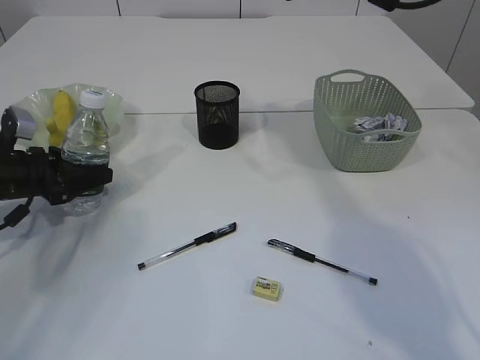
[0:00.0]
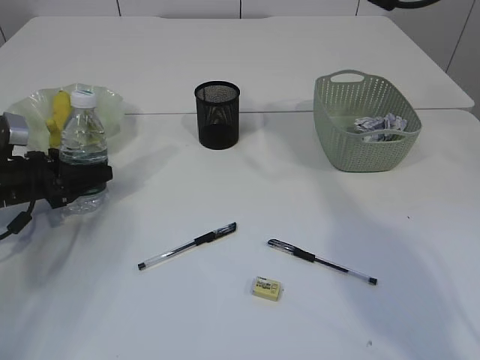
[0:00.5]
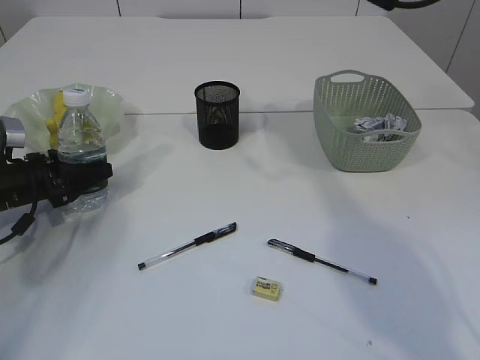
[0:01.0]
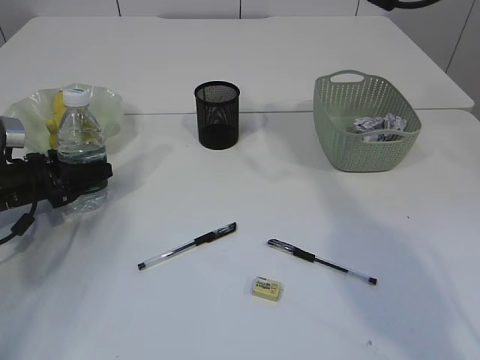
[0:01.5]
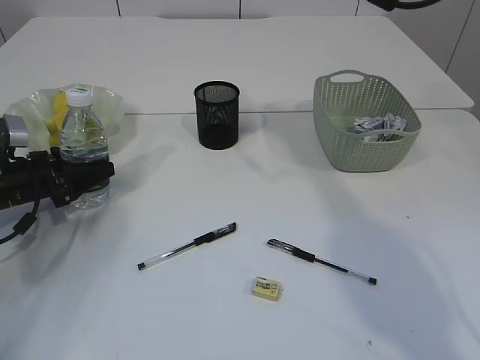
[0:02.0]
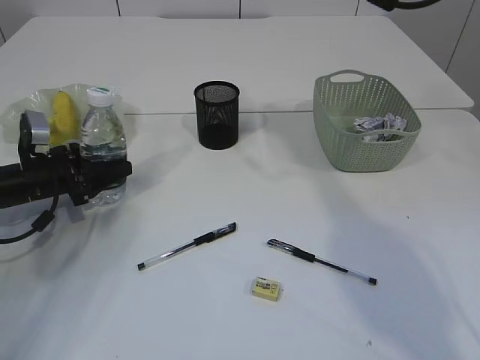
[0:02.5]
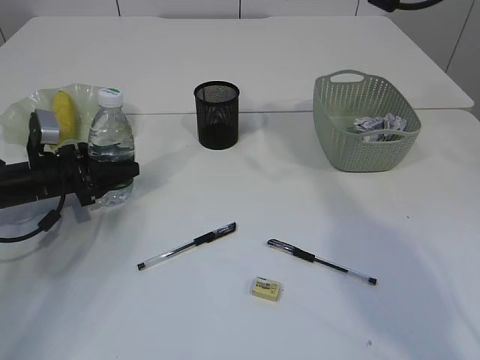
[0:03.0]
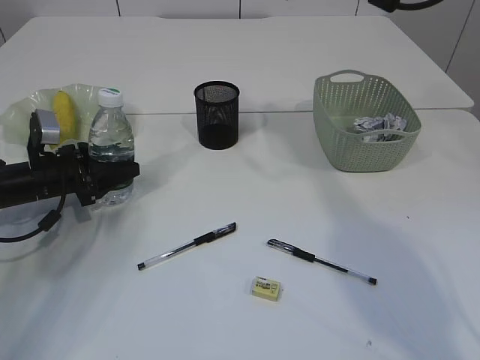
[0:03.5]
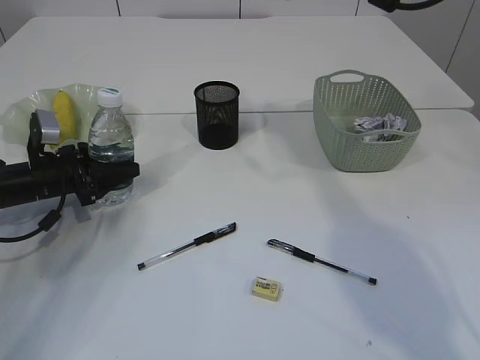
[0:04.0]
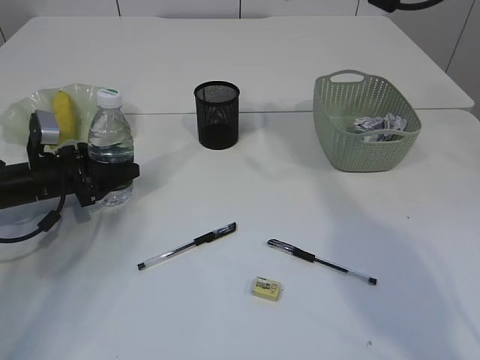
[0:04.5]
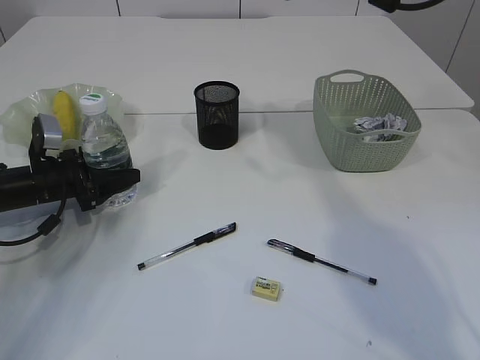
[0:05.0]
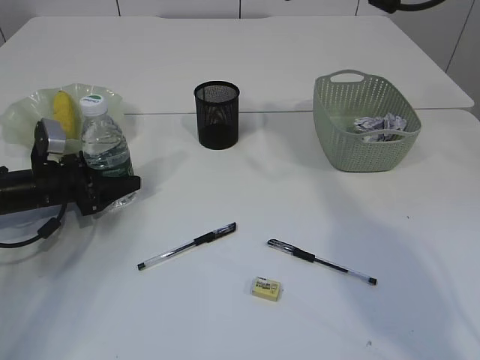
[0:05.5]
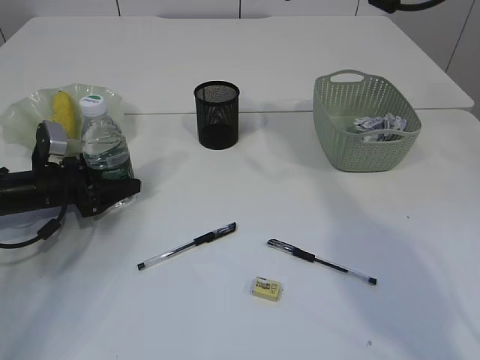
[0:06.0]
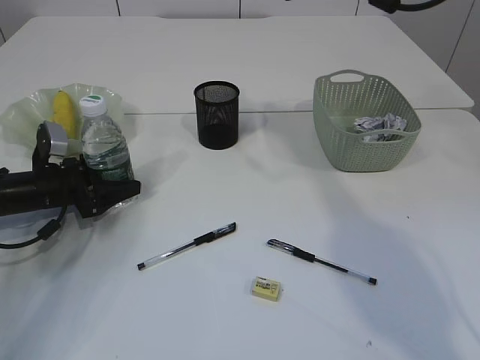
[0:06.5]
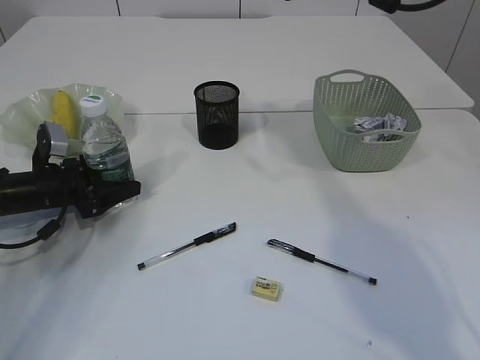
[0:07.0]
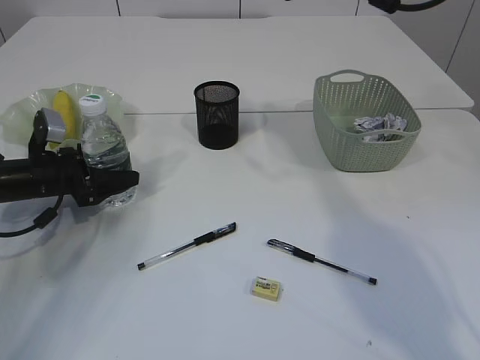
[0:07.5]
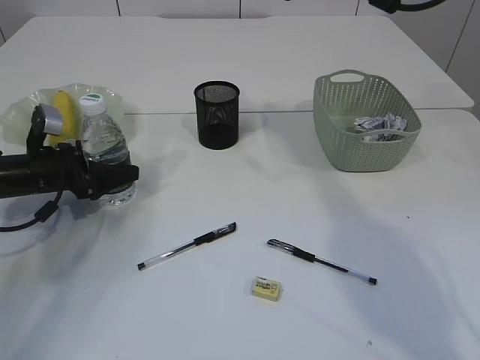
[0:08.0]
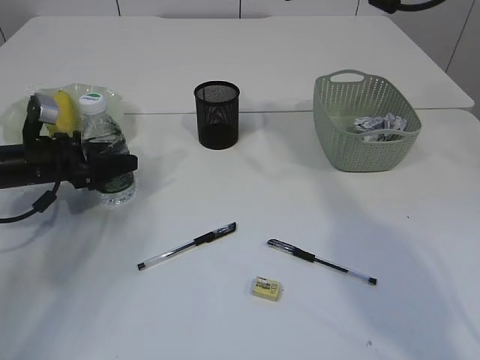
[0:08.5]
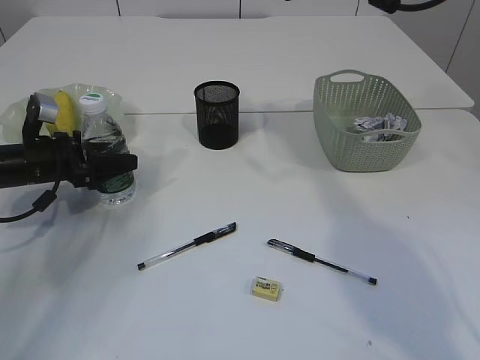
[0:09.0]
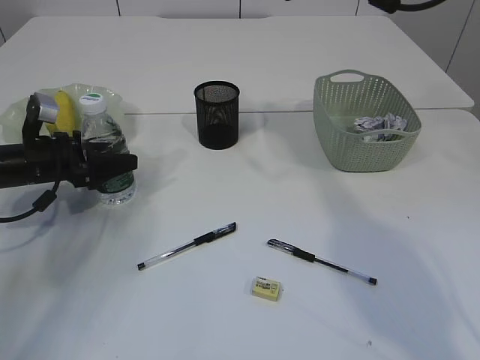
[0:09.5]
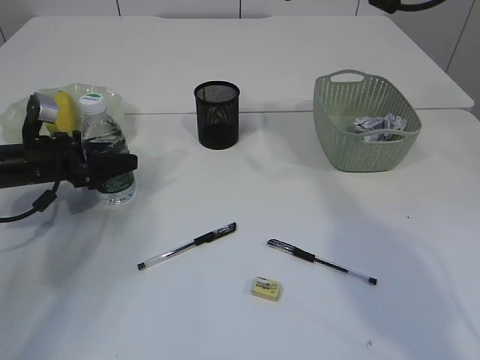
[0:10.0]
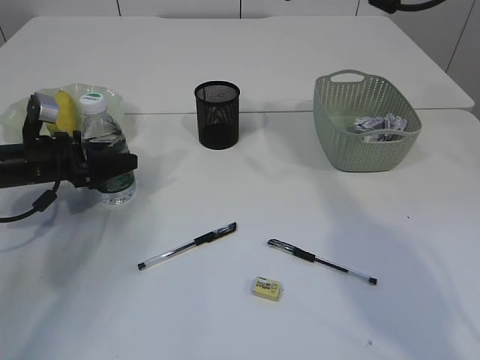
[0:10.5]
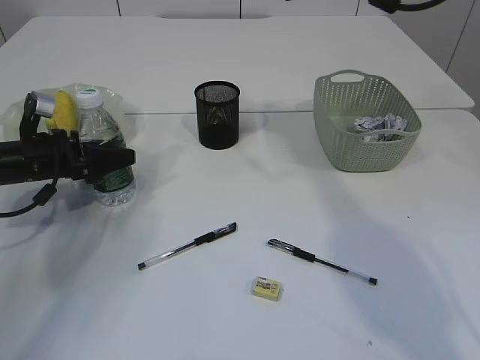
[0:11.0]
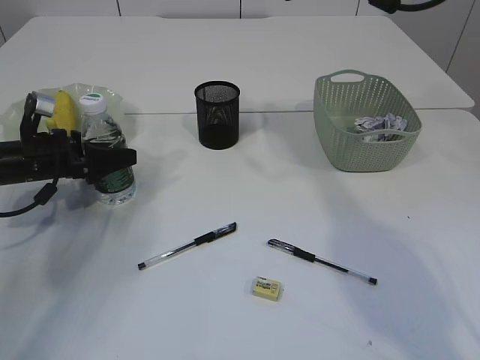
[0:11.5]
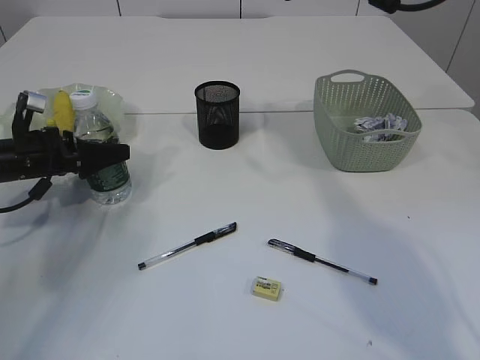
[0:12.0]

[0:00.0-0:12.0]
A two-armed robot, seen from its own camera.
0:00.0 to 0:04.0: The grippers make only small movements.
0:04.0 to 0:06.0: Neither gripper changes place.
0:06.0 to 0:12.0: The grippers stay close to where they were, moving slightly.

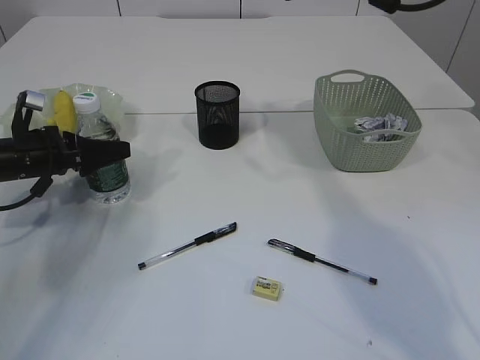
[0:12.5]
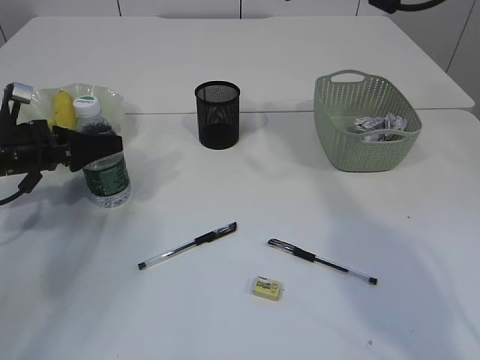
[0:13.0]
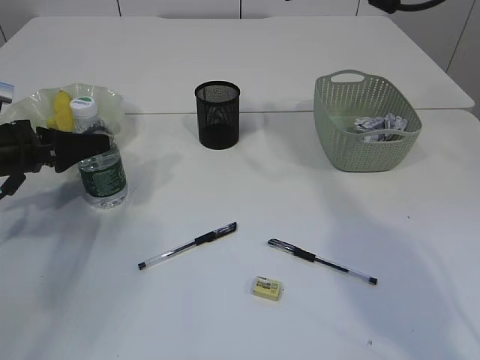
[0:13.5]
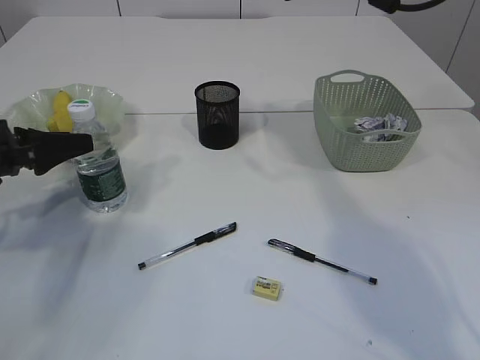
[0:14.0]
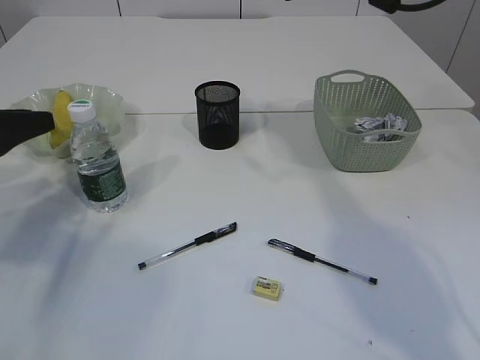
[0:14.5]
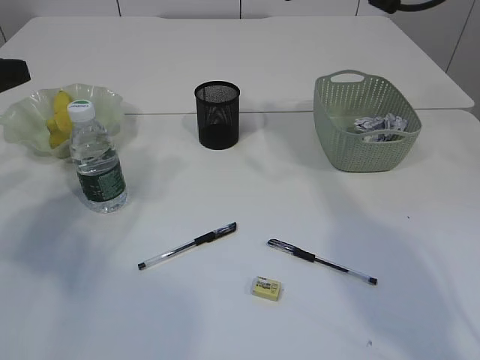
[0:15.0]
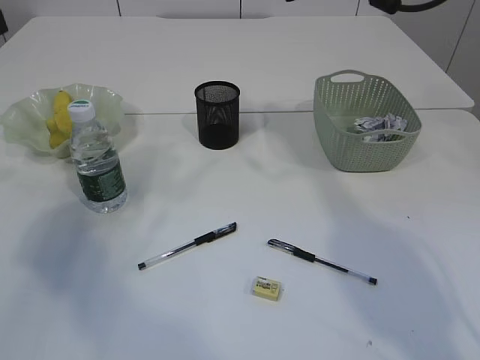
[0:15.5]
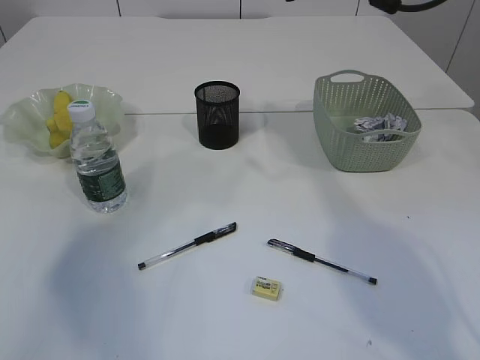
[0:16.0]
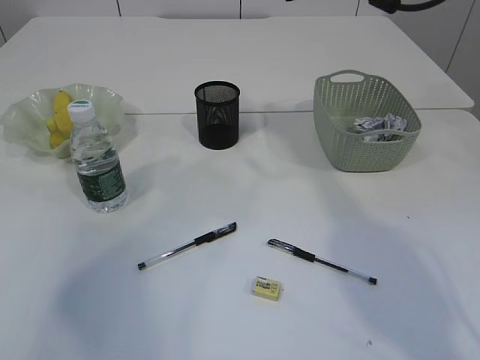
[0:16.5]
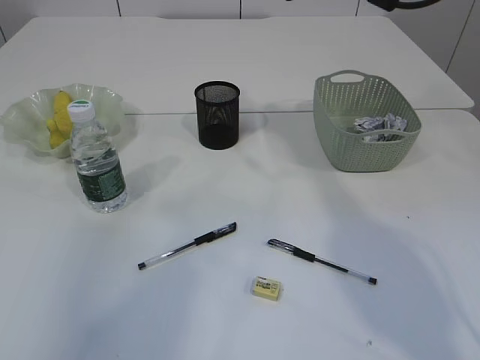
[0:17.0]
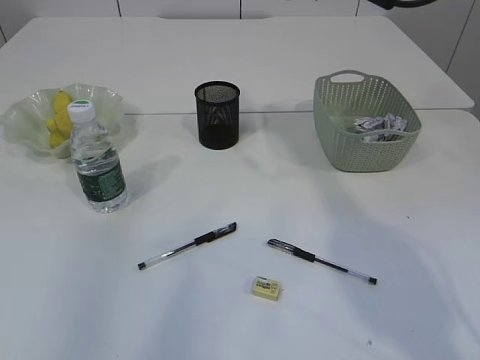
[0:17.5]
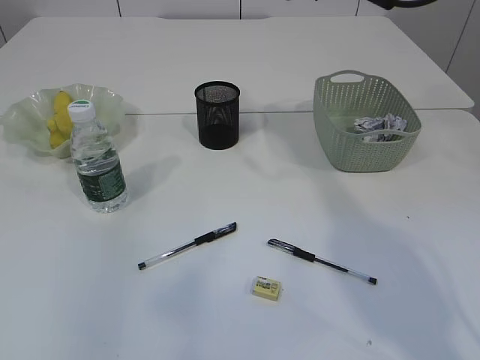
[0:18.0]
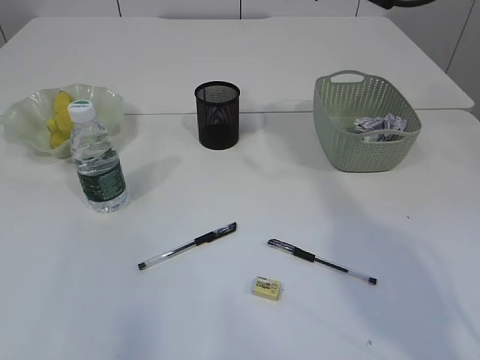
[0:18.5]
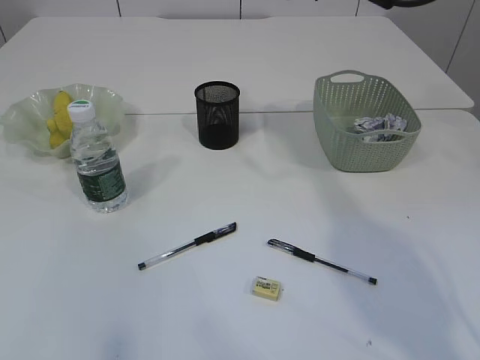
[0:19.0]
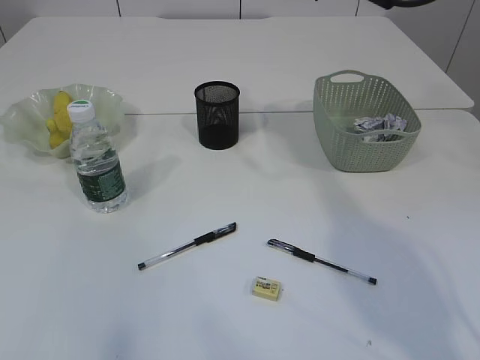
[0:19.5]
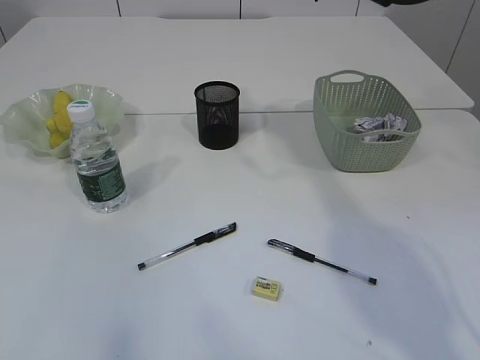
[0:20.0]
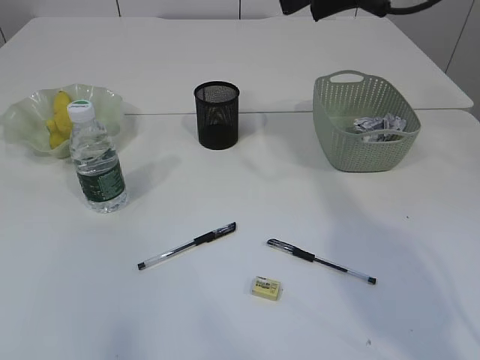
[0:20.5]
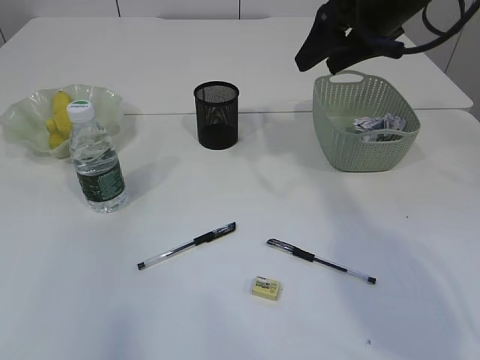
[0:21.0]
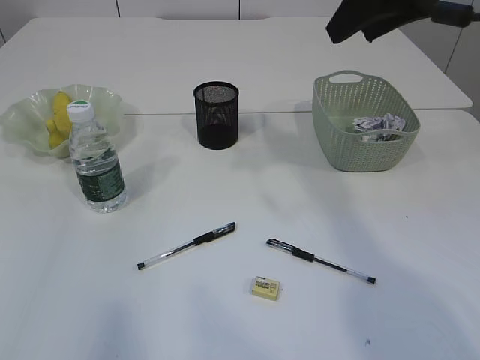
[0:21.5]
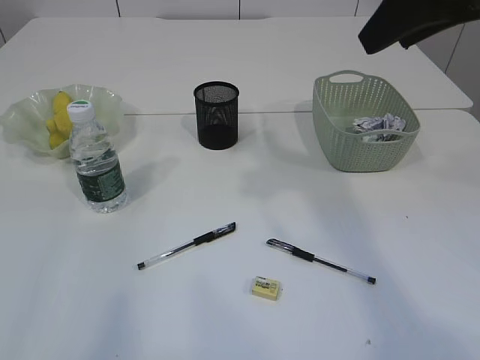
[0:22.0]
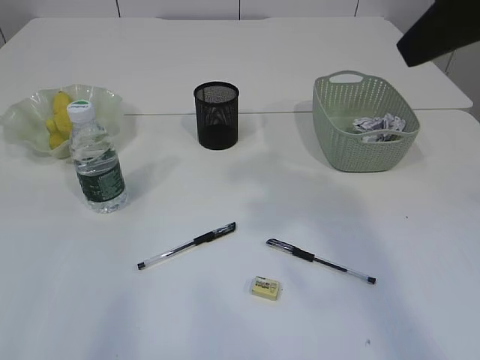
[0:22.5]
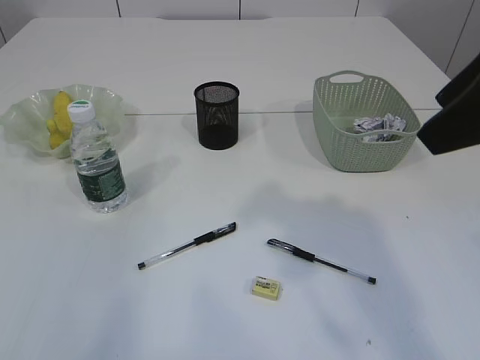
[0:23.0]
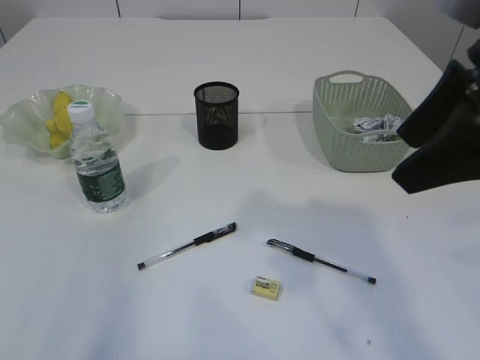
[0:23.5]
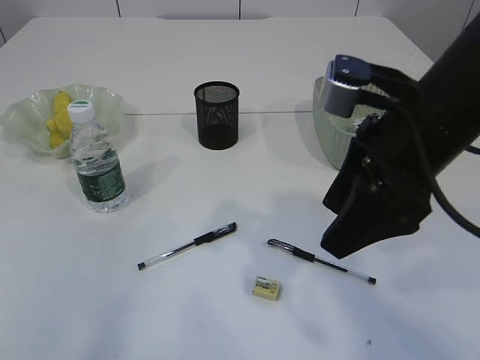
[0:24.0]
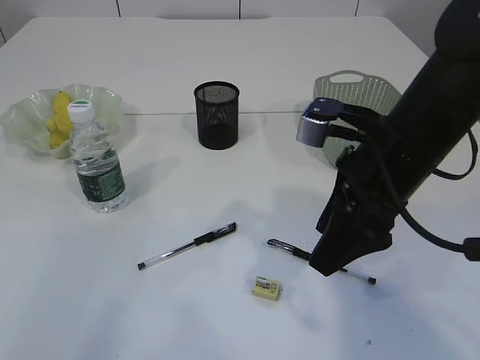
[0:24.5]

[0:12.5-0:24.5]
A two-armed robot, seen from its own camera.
0:12.5 to 0:14.5: The left gripper is displaced upward, backward and to the left by about 15 cm.
0:14.5 to 0:16.5: The left gripper is displaced upward and backward by some 25 cm.
0:16.5 to 0:18.5: The left gripper travels backward by some 25 cm.
0:18.5 to 0:20.5: The grippers stay close to where they were, moving slightly.
0:20.5 to 0:22.5: The right gripper moves backward, some 20 cm.
0:22.5 to 0:24.5: The right gripper moves downward and to the left, about 20 cm.

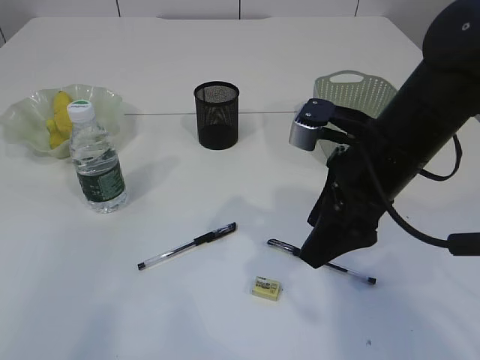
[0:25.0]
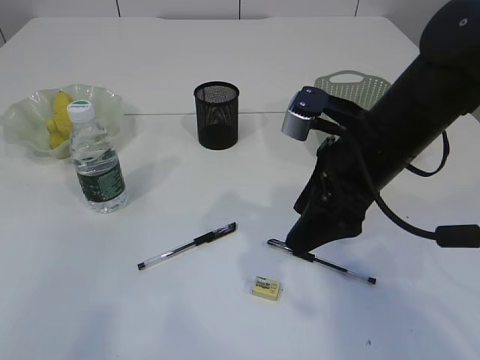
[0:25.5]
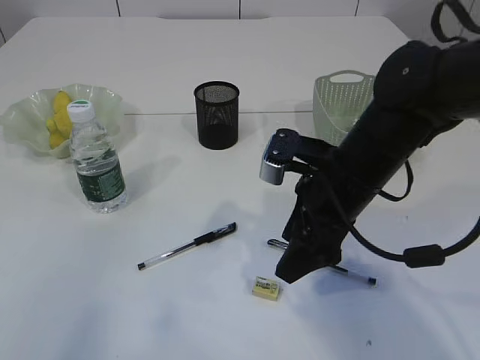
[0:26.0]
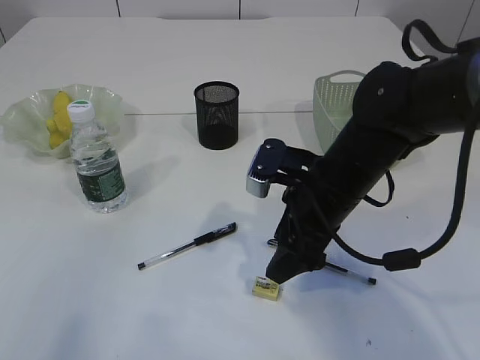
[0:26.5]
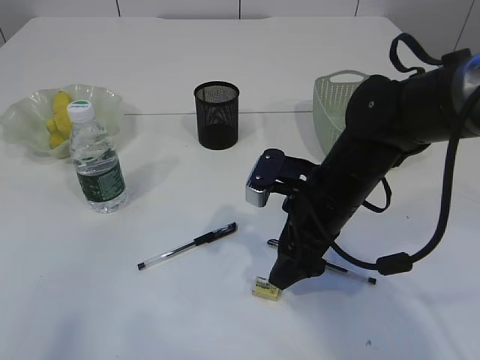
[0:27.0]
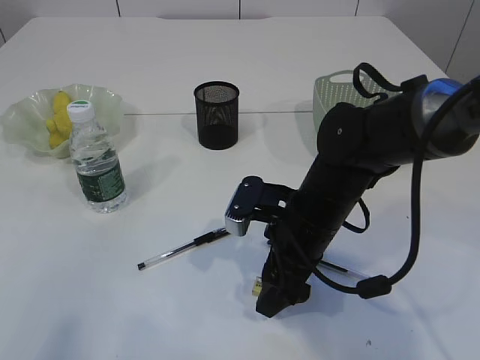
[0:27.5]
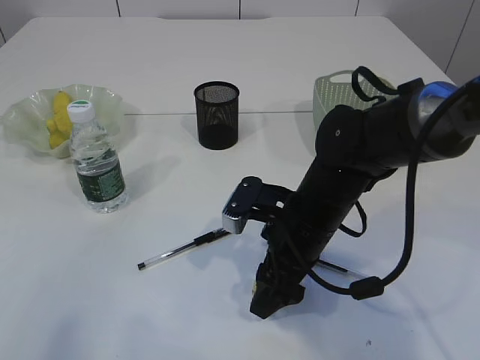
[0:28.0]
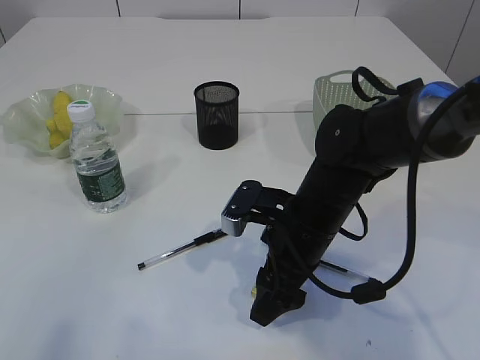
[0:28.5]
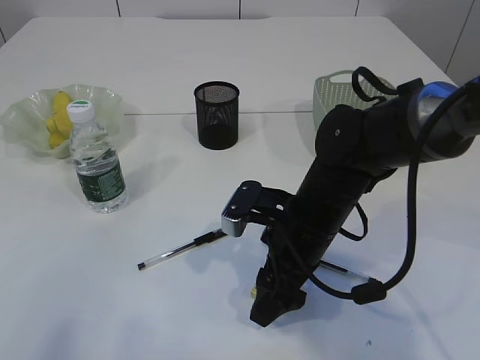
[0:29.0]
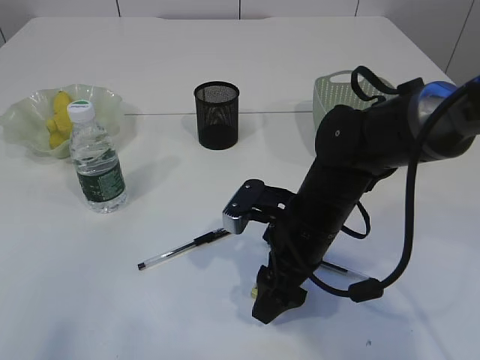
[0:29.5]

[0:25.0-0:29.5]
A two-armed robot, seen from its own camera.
0:25.0 to 0:27.0: The right gripper shifts approximately 10 cm downward.
0:27.0 to 0:29.5: The grippers move only a little.
